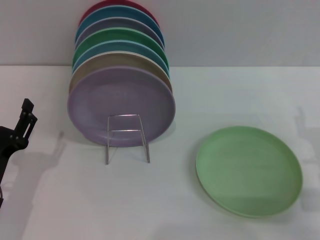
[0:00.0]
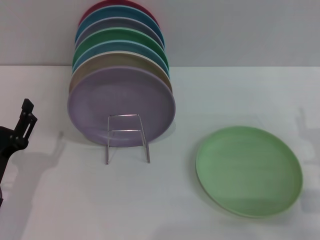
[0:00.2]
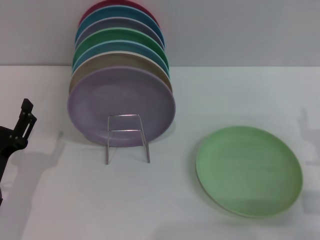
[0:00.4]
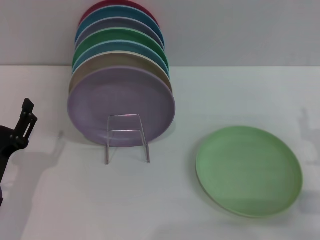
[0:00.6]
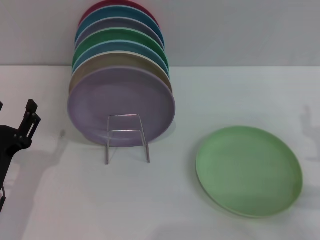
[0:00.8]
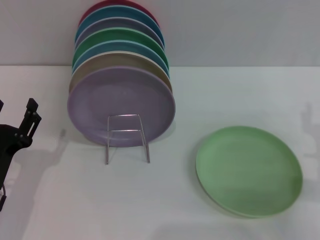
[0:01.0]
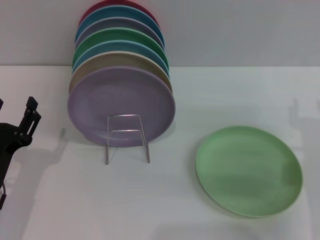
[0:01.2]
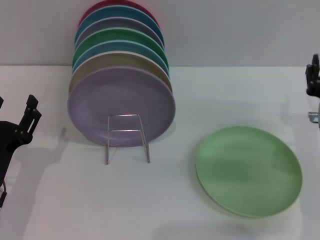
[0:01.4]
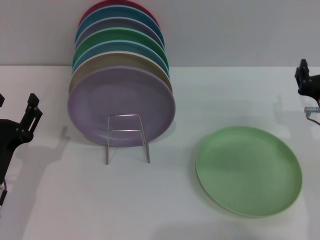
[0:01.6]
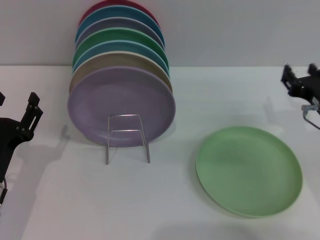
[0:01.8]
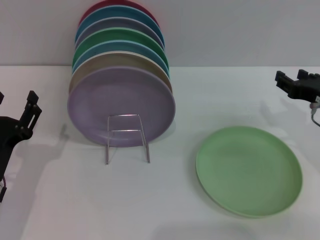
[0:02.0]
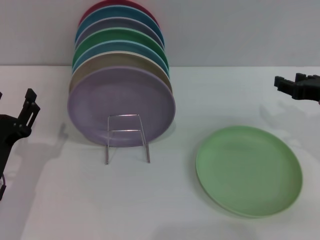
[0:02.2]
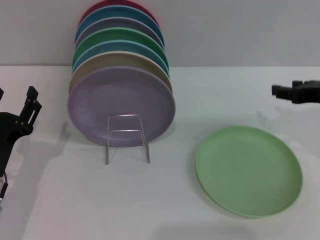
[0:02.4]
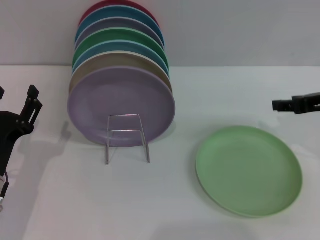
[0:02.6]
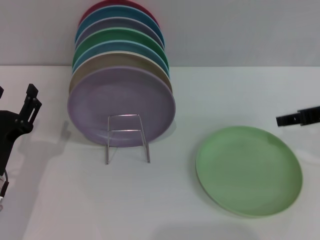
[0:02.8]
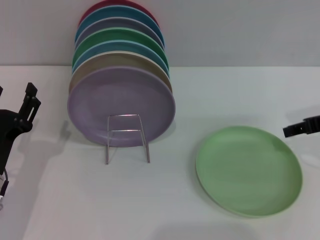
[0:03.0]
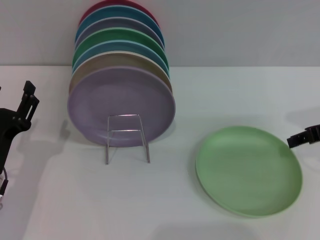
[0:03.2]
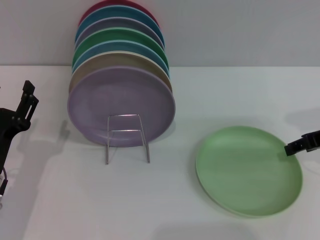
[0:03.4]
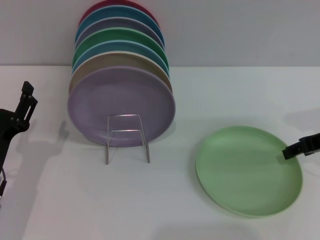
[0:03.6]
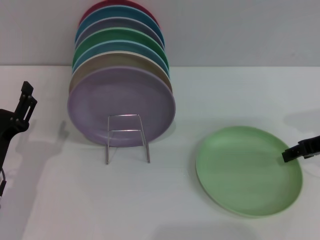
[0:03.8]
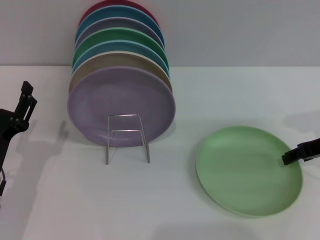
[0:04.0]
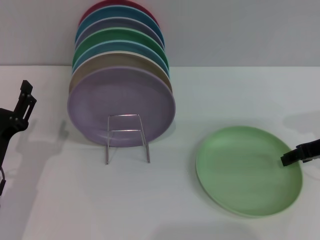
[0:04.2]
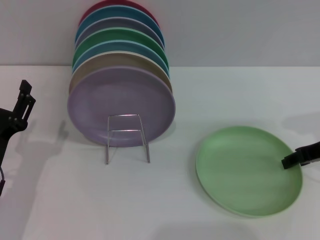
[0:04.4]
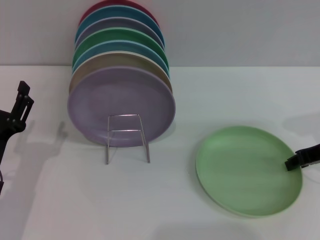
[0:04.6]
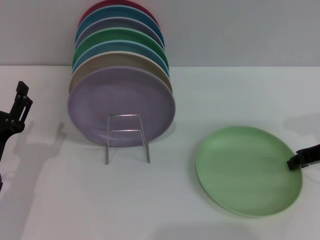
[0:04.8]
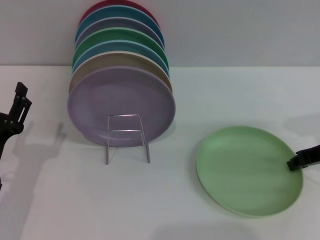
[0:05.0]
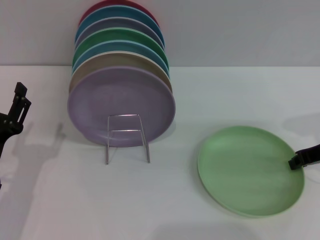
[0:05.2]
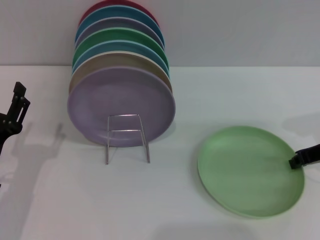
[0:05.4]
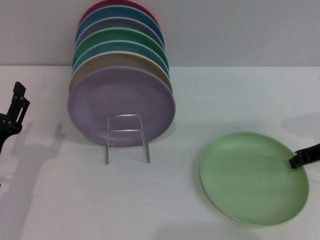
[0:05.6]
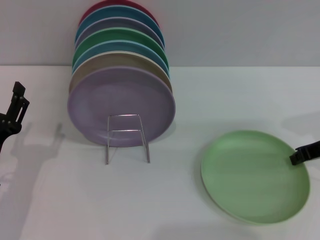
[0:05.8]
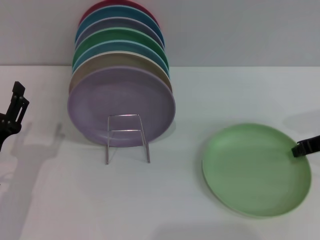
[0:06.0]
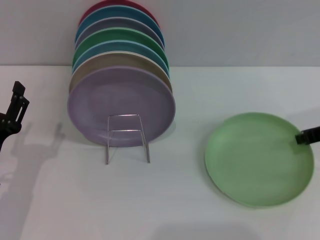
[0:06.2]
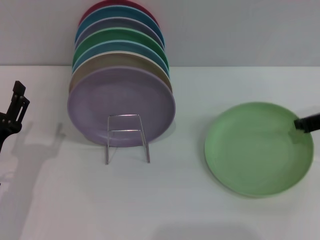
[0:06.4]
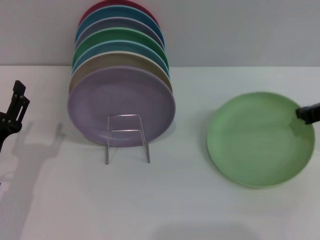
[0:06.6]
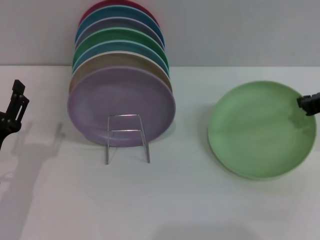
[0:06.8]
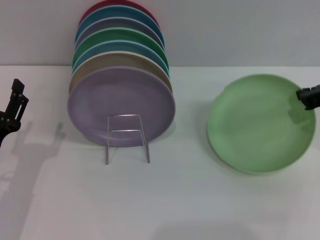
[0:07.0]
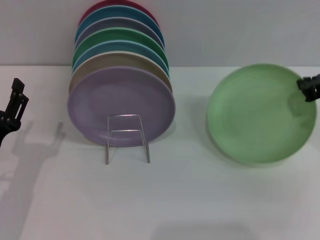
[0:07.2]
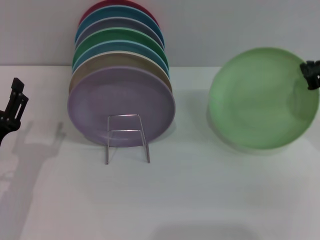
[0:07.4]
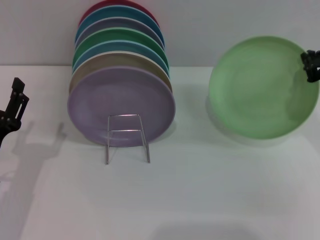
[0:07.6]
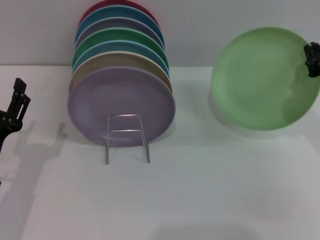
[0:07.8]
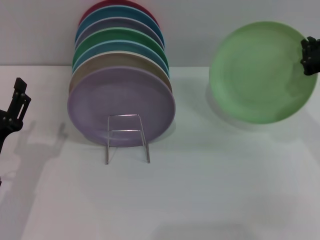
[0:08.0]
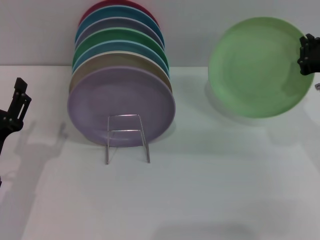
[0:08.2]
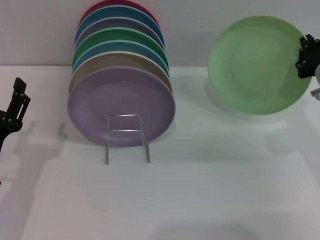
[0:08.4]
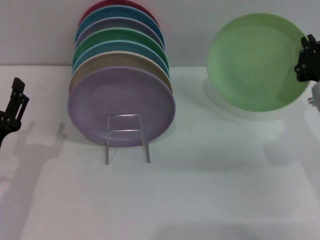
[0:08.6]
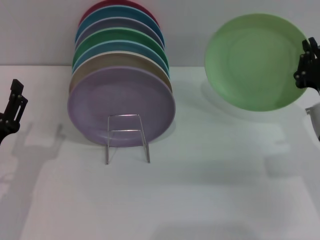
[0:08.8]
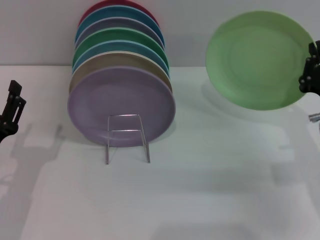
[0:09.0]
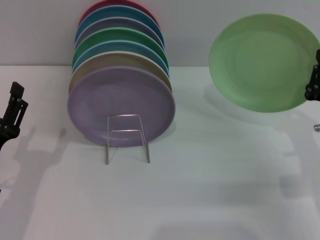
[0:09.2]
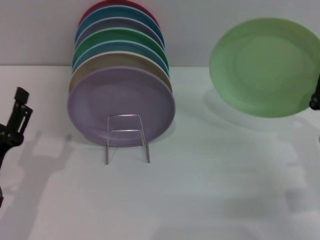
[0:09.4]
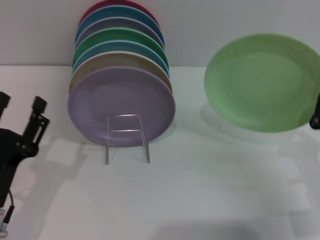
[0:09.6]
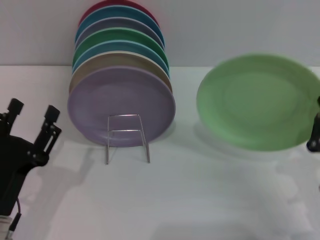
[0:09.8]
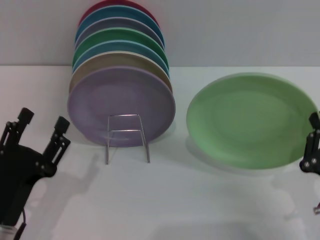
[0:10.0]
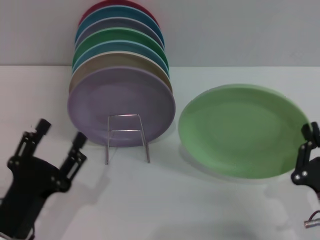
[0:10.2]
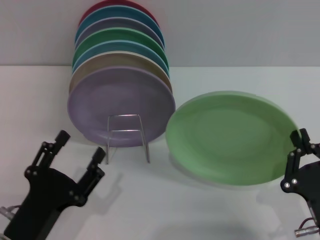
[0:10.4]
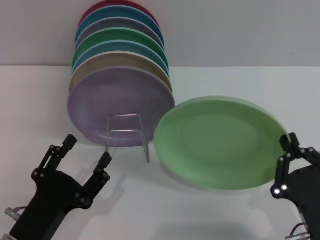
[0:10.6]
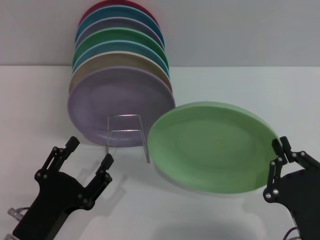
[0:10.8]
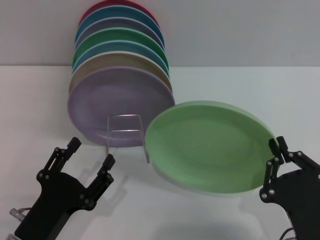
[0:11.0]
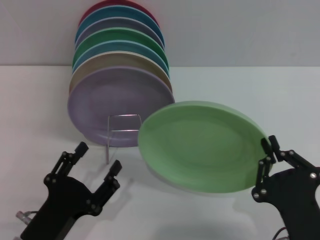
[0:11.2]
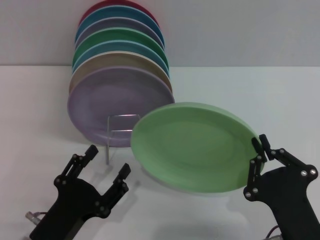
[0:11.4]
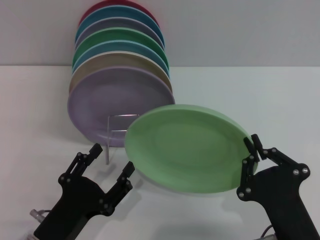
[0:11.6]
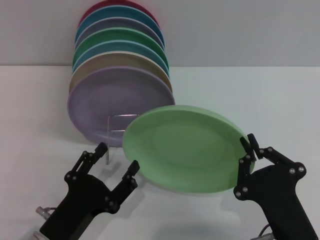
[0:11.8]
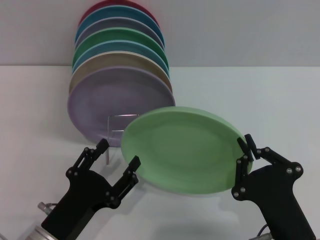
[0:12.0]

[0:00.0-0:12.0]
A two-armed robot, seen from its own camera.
Task of the whole recording: Grip the plate with one hand, pass it to the other, then set it on the shelf.
Step, 0:00.0 to 0:07.0: Pick up the plate with the right gripper.
0:00.0 to 0:01.6: The right gripper moves some 5 cm.
0:01.6 to 0:03.0: The right gripper shifts approximately 10 cm upward and to the right.
0:03.0 to 0:04.4: The grippers move only a little.
0:04.4 to 0:06.0: The right gripper closes.
0:06.0 to 0:07.6: The right gripper goes approximately 5 cm upward.
0:07.6 to 0:09.0: The right gripper goes roughly 10 cm downward and backward.
0:09.0 to 0:10.4: The left gripper moves backward and to the right, about 10 cm; the right gripper moves backward, roughly 15 cm.
0:10.4 to 0:12.0: The right gripper heads to the left, covering roughly 5 cm.

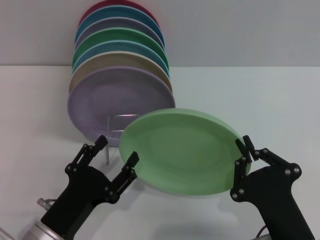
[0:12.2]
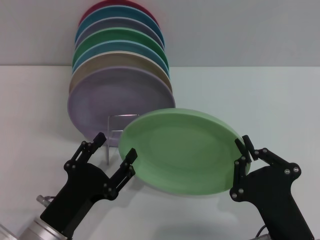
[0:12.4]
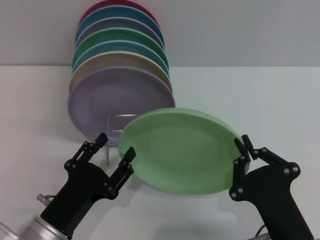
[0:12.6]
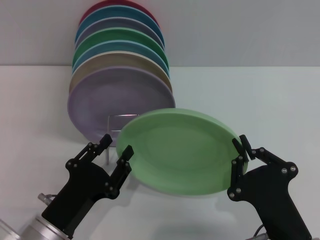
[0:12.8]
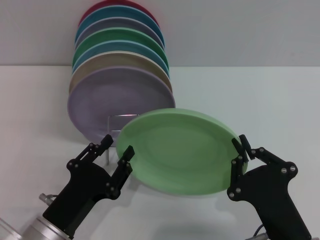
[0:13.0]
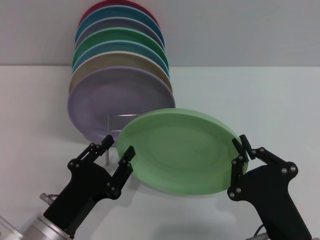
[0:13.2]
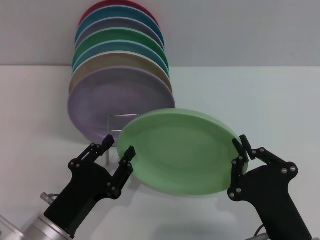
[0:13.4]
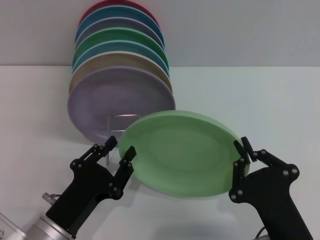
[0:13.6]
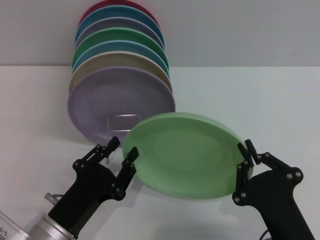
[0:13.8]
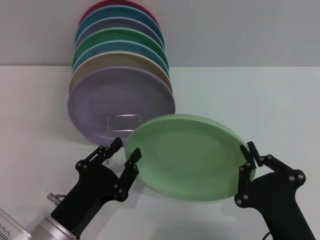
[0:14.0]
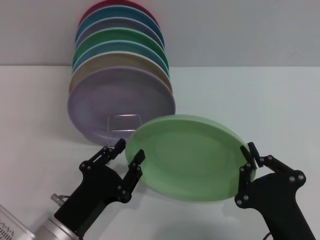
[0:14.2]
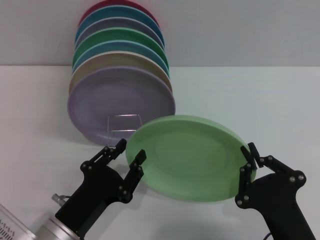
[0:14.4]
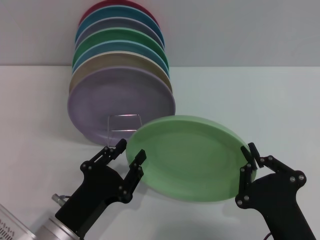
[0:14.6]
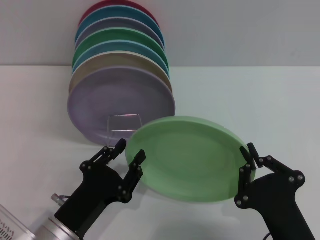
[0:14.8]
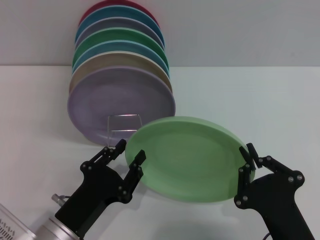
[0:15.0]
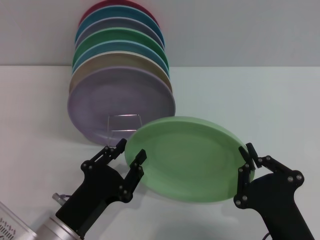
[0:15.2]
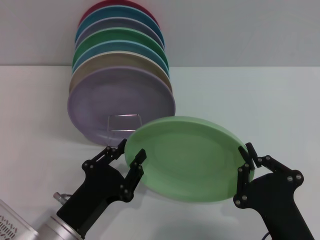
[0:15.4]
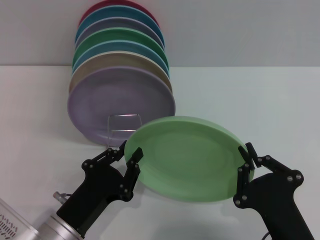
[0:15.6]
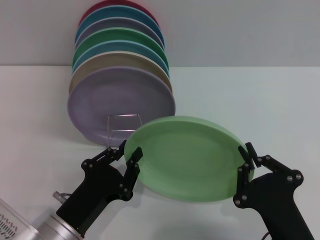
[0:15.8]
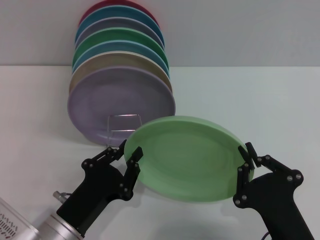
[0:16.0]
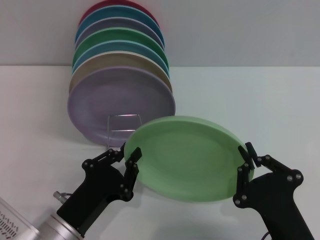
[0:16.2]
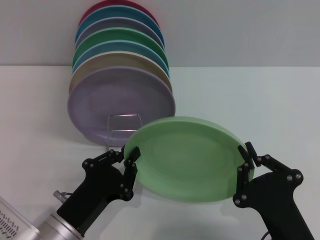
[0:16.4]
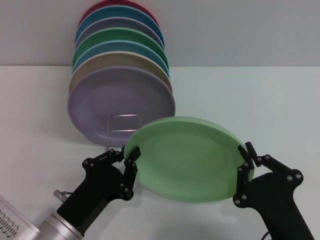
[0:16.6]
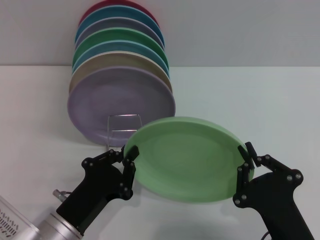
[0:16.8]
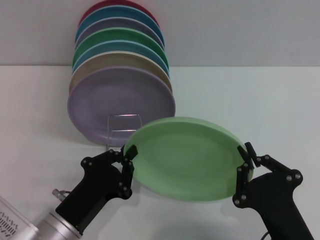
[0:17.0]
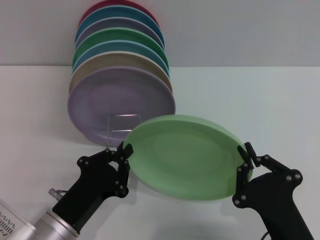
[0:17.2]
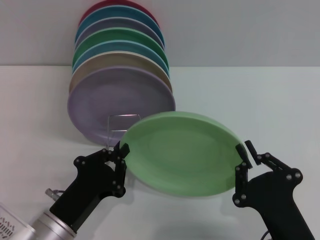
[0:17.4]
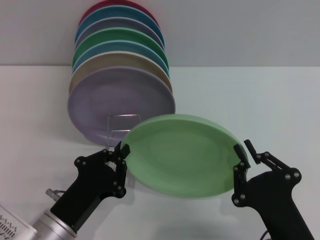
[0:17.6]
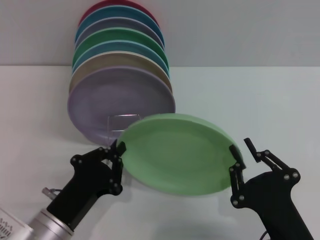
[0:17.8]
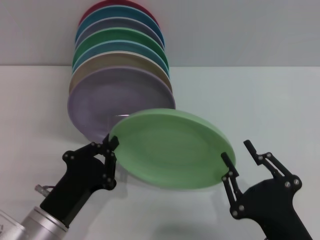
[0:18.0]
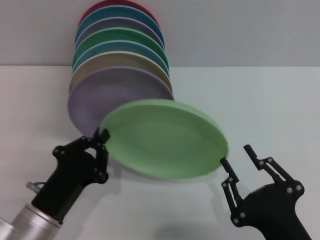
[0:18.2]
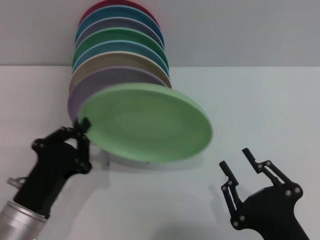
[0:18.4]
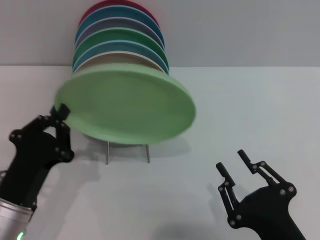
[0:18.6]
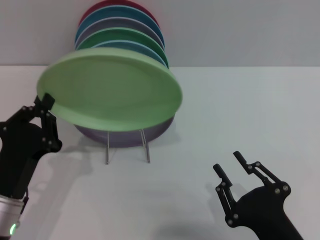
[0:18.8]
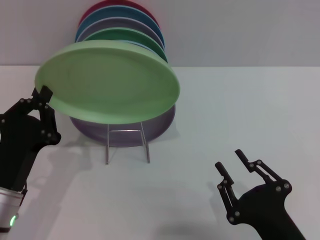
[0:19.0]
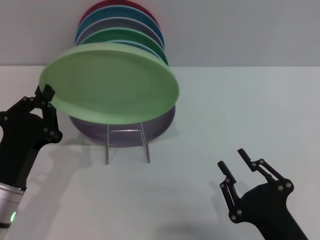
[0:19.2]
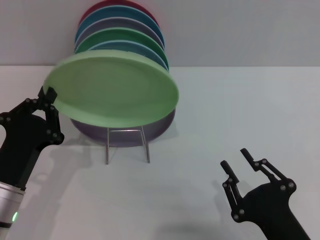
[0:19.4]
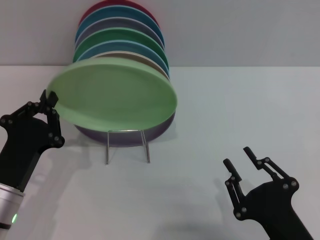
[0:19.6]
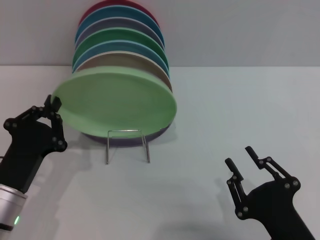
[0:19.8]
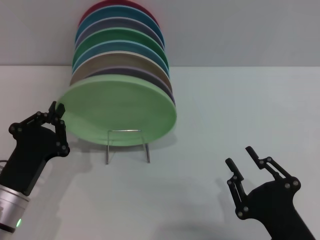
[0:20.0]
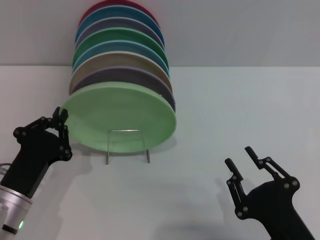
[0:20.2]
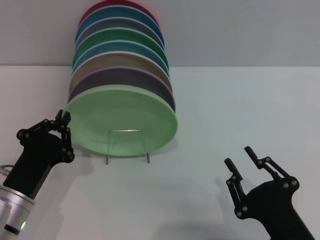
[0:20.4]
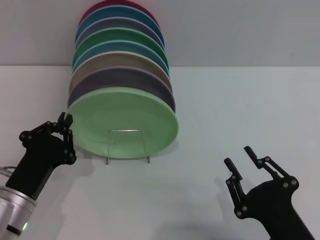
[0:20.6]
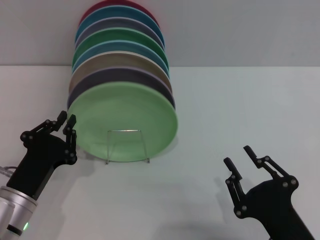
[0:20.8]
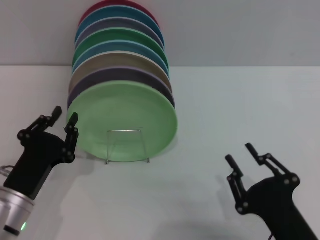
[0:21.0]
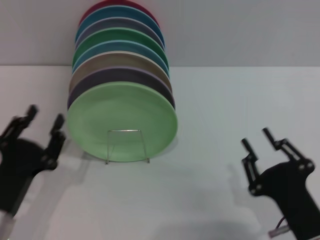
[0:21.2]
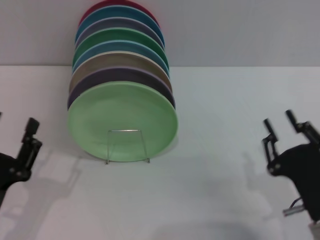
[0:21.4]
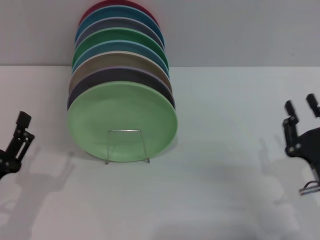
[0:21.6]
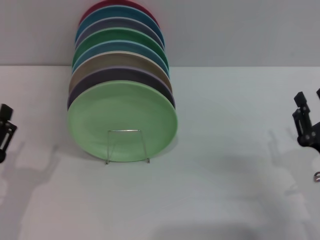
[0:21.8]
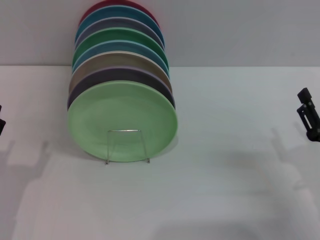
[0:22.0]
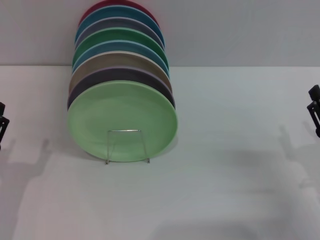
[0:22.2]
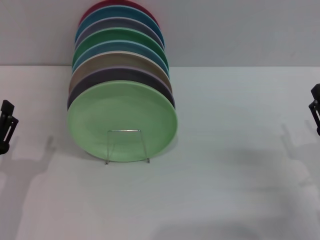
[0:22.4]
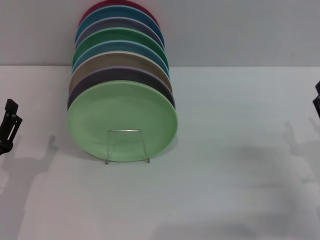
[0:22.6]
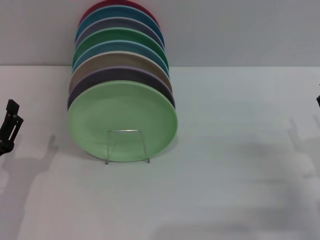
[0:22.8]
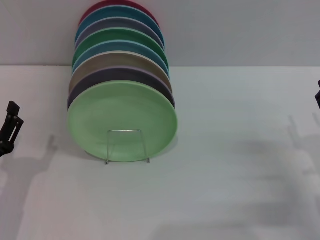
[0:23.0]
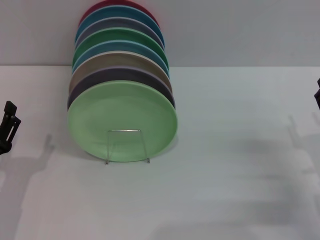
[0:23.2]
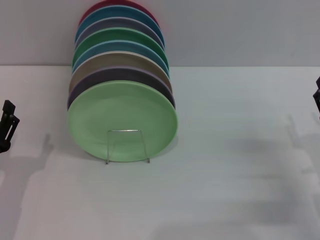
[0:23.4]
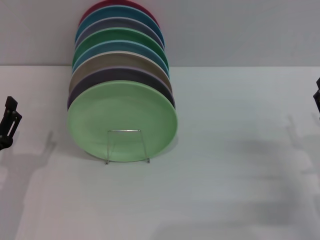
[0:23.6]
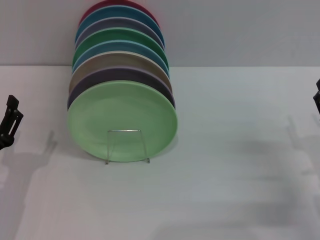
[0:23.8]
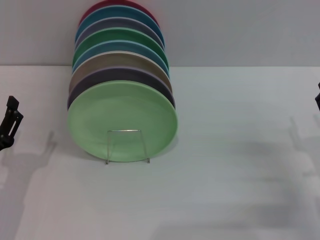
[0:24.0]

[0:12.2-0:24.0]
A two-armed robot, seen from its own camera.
Task of the whole recording: Grip the plate with one hand, pass it to the other, then set it on the shelf.
Step, 0:12.2 to 0:18.4: Pass the plate from the right gripper to the left gripper.
Step, 0:18.6 to 0:21.4: Place the plate on the shelf with the left gripper.
0:12.2 to 0:13.6: The left gripper closes.
0:13.6 to 0:15.2: Both grippers stay put.
0:15.2 to 0:16.6: The left gripper closes up.
0:16.6 to 0:18.2: The right gripper opens its fingers.
0:19.6 to 0:21.0: The grippers move only a little.
0:21.0 to 0:22.6: The left gripper opens, while the right gripper shifts some 15 cm to the right and forward, and opens its fingers.
